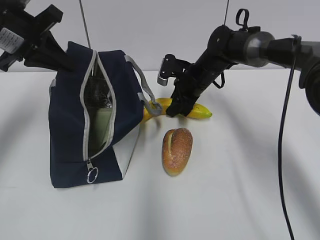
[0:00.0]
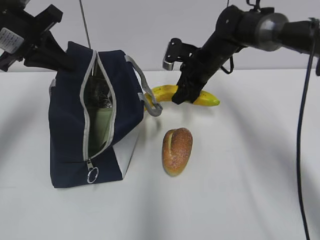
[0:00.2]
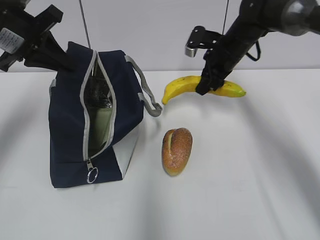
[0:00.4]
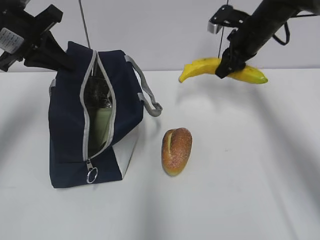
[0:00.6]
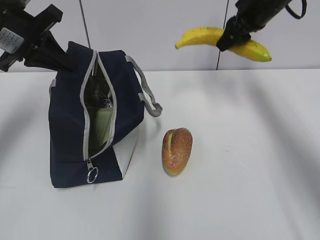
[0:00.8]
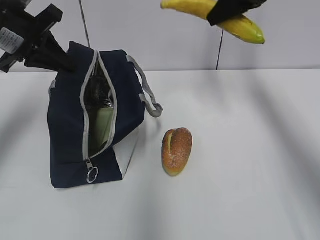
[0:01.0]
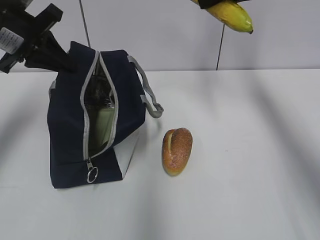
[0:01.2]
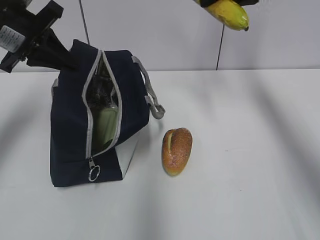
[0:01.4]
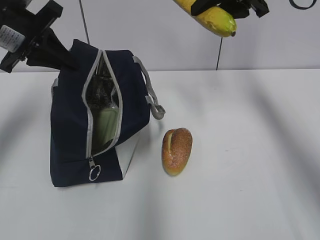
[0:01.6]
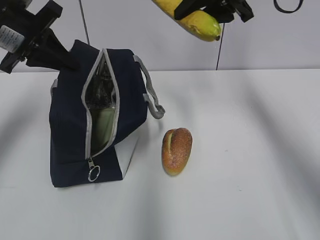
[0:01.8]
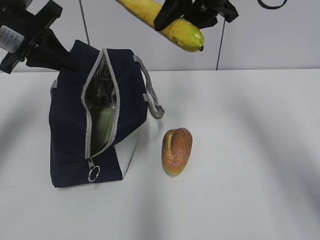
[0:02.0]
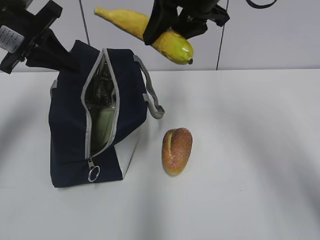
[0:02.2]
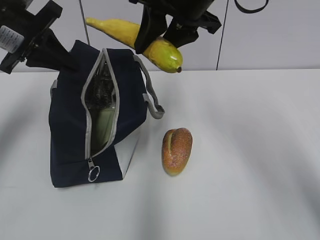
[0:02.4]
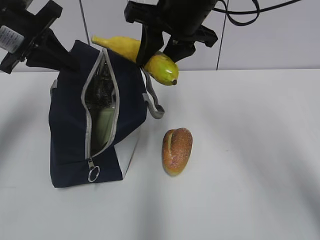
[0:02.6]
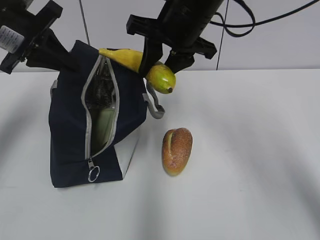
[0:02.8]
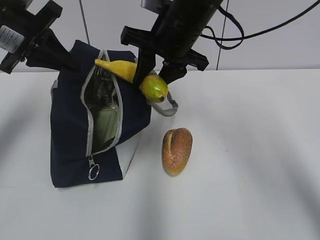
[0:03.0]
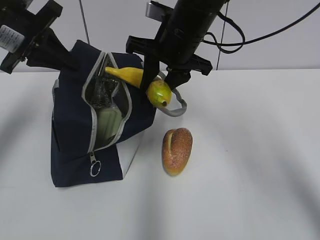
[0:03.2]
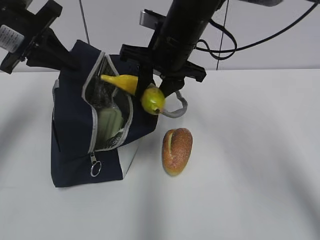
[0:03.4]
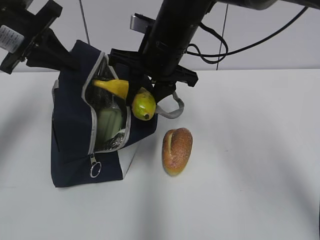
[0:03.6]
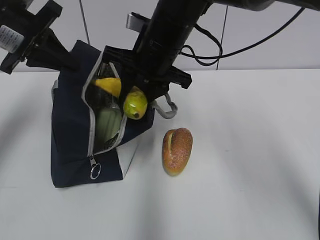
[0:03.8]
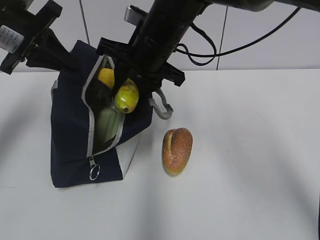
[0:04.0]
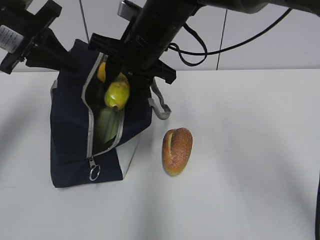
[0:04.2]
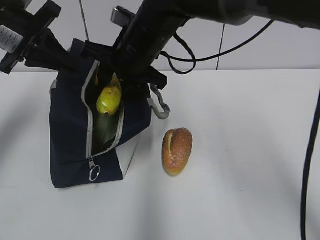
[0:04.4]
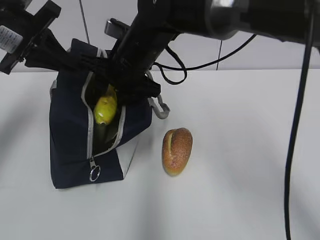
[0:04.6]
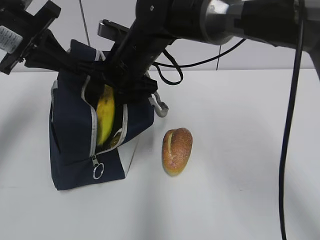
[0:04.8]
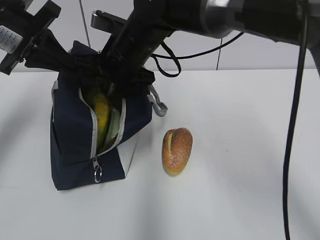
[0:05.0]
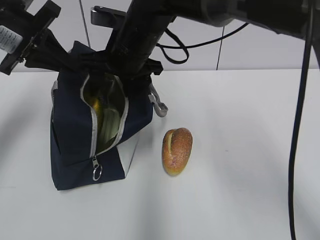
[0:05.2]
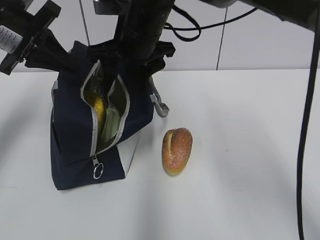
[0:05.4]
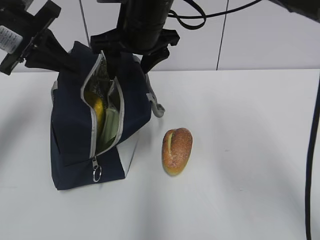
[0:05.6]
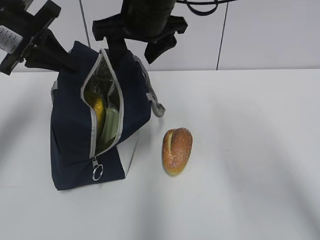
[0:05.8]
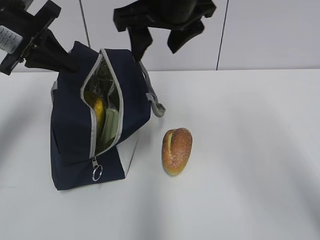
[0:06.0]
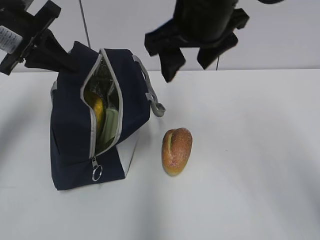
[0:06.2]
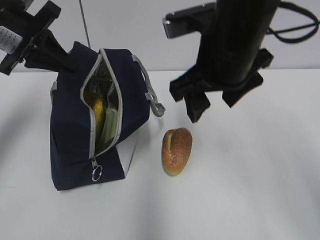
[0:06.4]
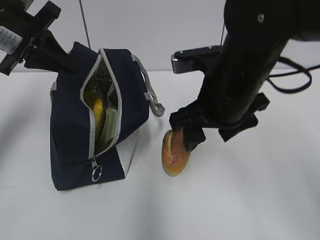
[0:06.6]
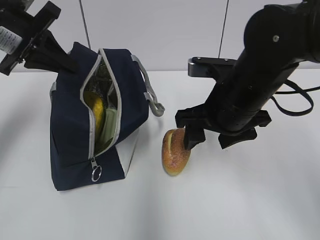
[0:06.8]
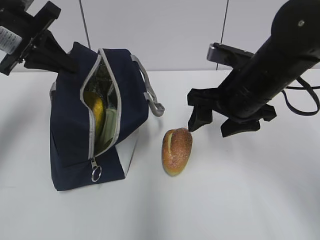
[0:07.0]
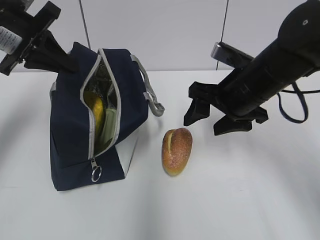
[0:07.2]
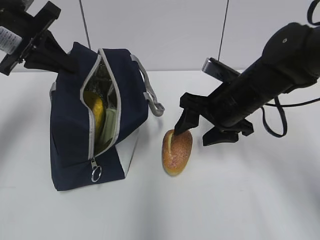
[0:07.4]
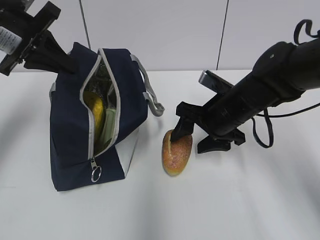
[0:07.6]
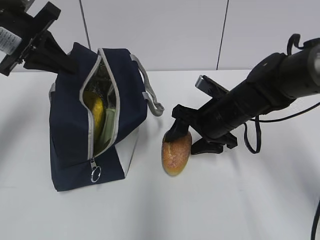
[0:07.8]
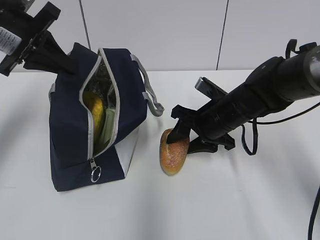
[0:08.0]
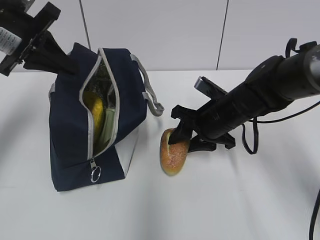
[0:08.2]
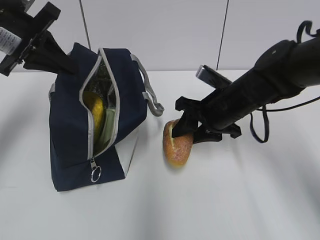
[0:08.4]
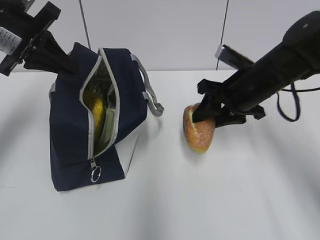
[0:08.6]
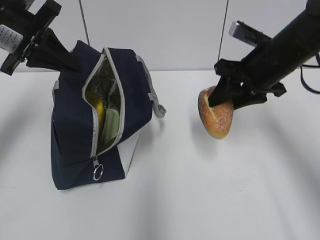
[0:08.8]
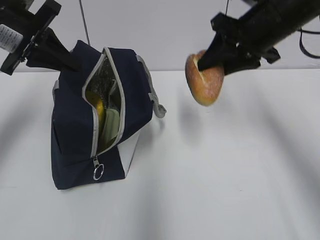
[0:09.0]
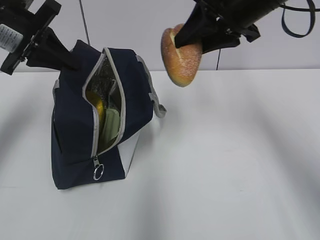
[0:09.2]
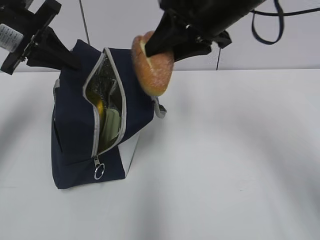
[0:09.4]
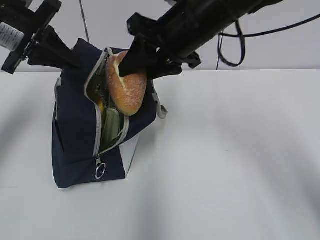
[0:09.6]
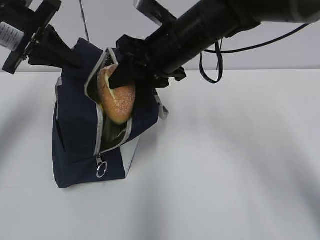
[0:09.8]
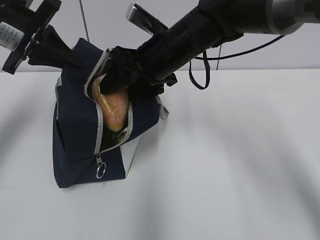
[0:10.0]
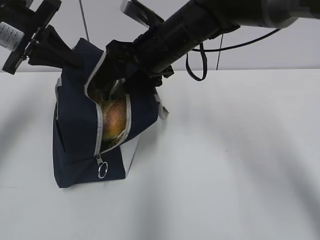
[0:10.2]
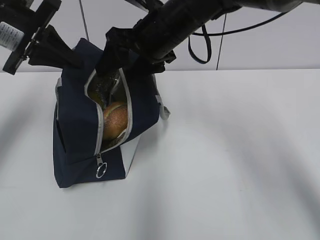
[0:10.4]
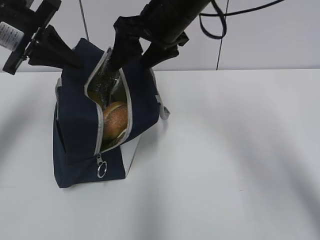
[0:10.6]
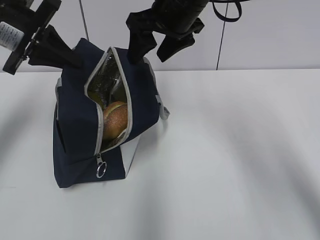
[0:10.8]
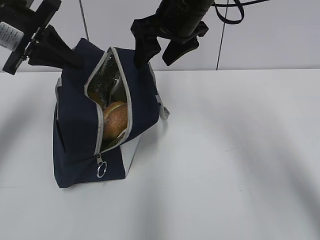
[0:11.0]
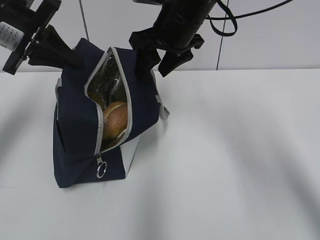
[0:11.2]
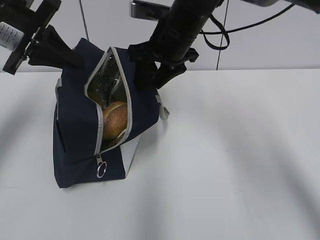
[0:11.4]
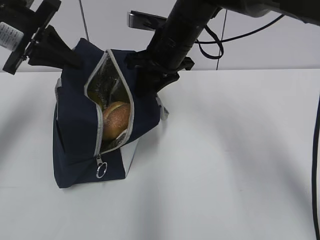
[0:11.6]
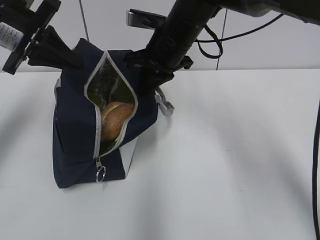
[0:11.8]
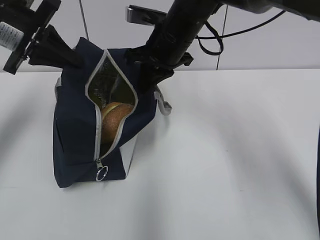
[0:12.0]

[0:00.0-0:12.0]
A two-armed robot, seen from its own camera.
0:00.0 to 0:01.6: The right gripper shifts roughly 20 cm upward.
0:01.6 to 0:03.0: The right gripper heads to the left and downward, covering some 15 cm.
0:03.0 to 0:04.4: The right gripper shifts some 5 cm to the left.
0:04.4 to 0:06.0: The right gripper travels upward and to the right by approximately 10 cm, and opens up.
0:06.0 to 0:07.6: The right gripper moves downward, some 20 cm.
0:07.6 to 0:09.0: The right gripper goes roughly 15 cm upward, and closes its fingers.
0:09.0 to 0:10.4: The right gripper heads to the left, covering some 15 cm, and opens.
0:10.4 to 0:12.0: The right gripper closes.

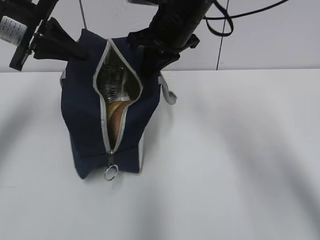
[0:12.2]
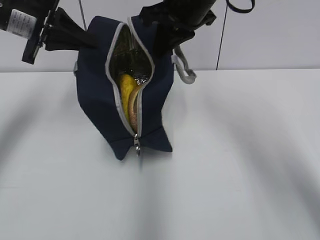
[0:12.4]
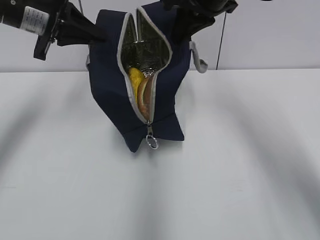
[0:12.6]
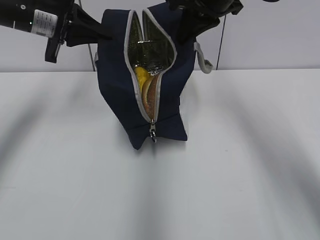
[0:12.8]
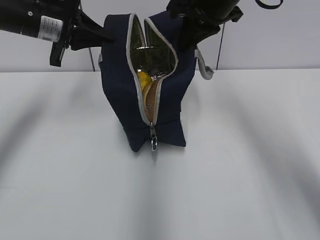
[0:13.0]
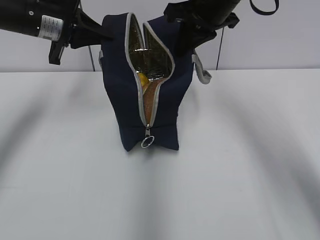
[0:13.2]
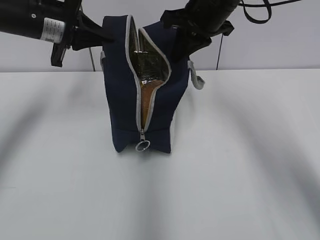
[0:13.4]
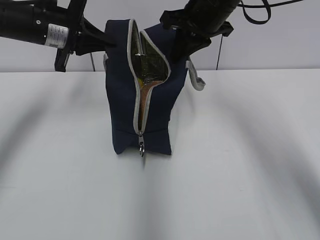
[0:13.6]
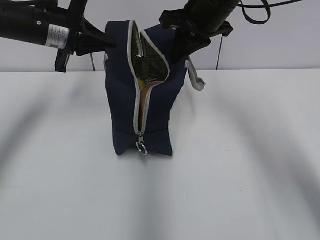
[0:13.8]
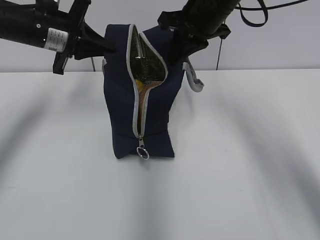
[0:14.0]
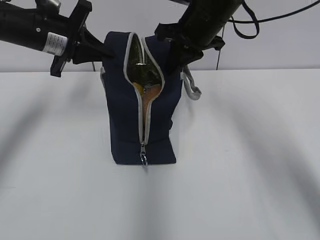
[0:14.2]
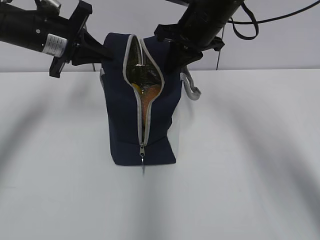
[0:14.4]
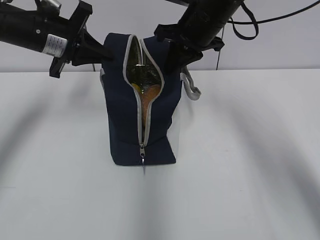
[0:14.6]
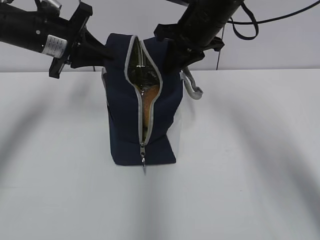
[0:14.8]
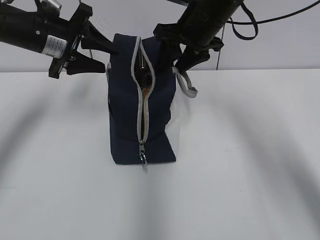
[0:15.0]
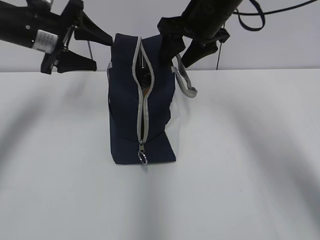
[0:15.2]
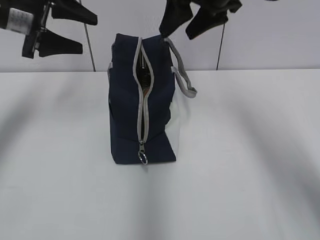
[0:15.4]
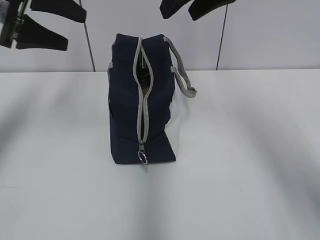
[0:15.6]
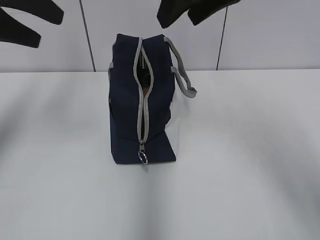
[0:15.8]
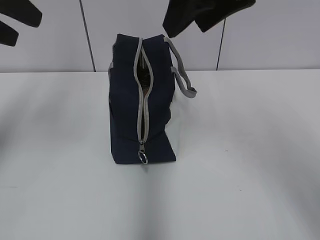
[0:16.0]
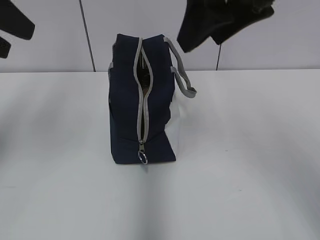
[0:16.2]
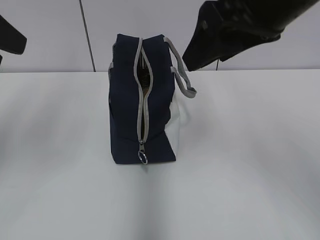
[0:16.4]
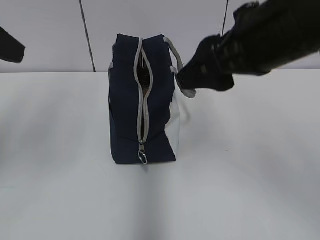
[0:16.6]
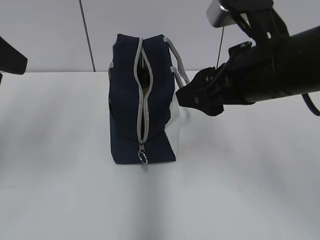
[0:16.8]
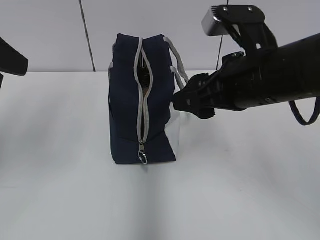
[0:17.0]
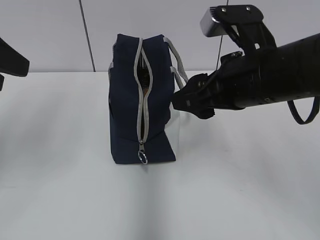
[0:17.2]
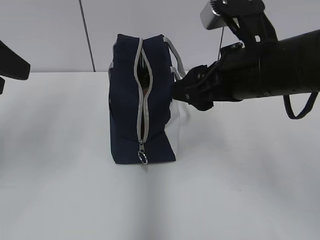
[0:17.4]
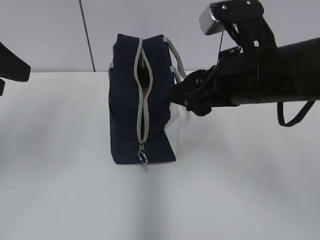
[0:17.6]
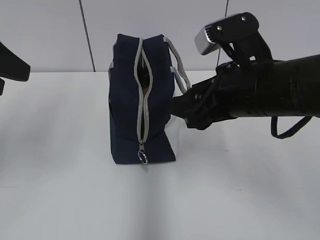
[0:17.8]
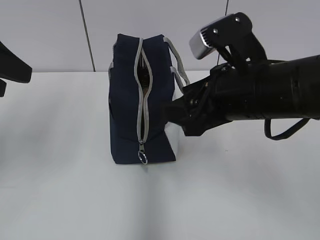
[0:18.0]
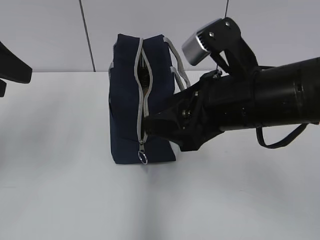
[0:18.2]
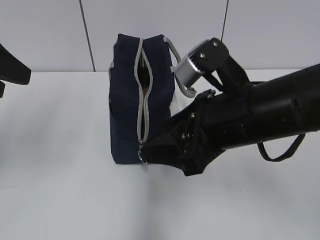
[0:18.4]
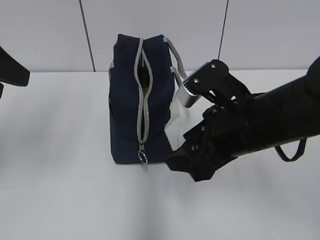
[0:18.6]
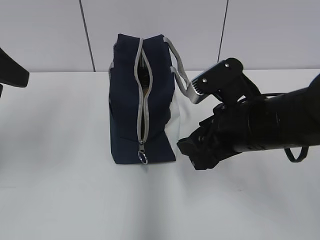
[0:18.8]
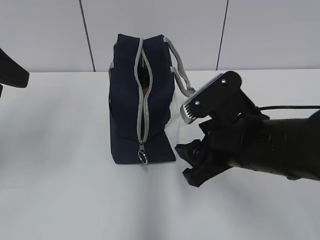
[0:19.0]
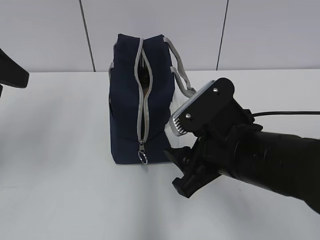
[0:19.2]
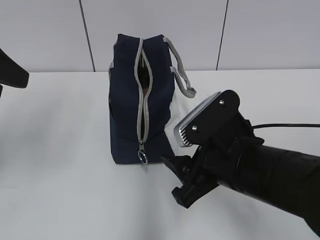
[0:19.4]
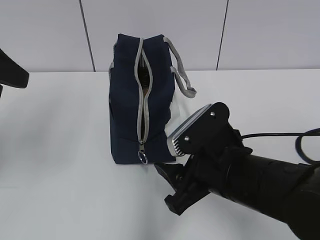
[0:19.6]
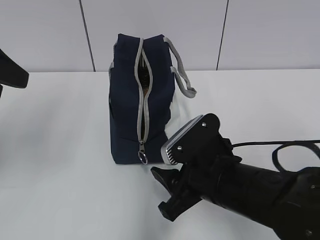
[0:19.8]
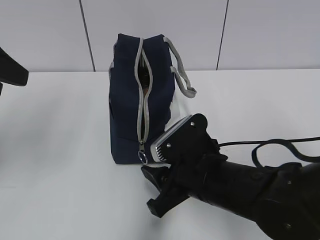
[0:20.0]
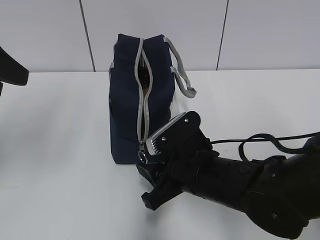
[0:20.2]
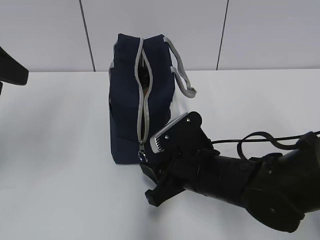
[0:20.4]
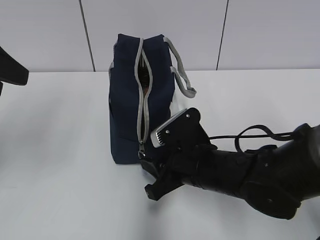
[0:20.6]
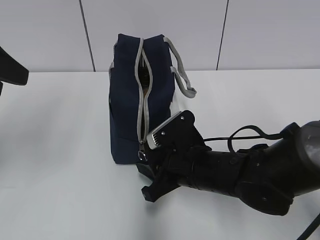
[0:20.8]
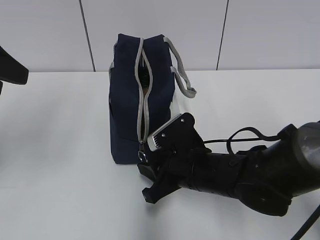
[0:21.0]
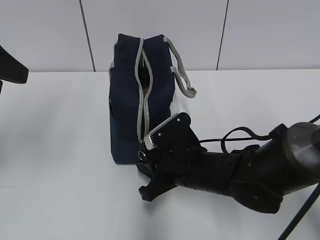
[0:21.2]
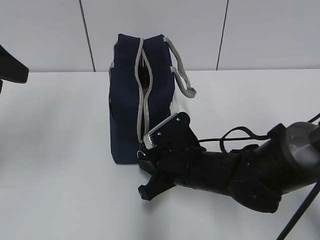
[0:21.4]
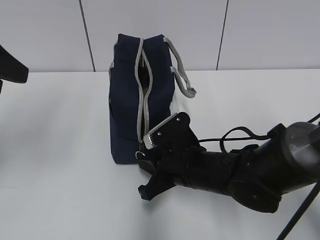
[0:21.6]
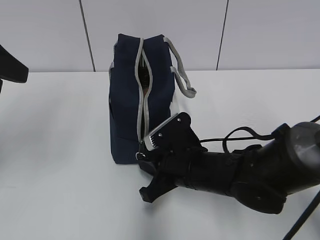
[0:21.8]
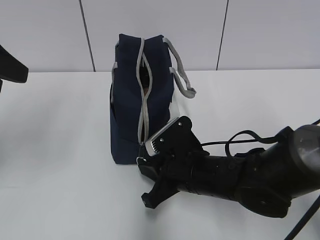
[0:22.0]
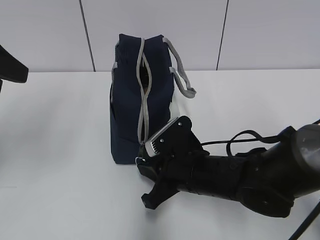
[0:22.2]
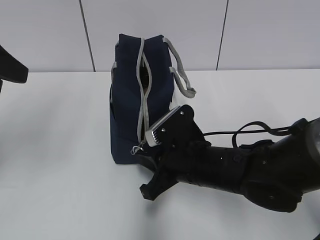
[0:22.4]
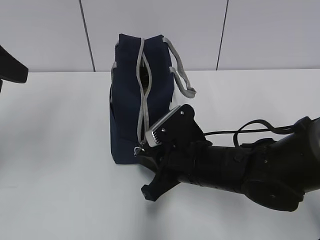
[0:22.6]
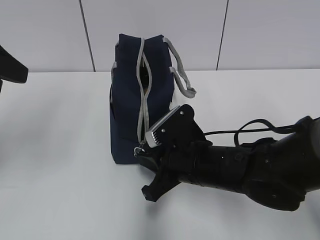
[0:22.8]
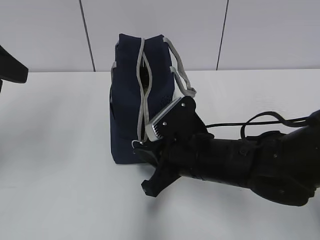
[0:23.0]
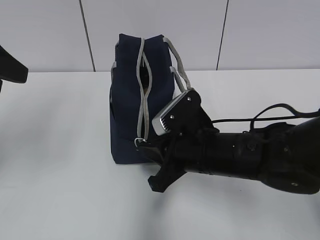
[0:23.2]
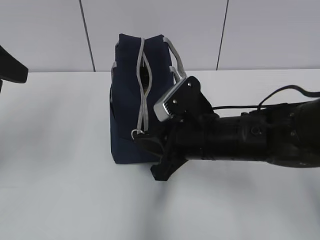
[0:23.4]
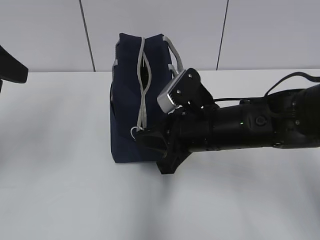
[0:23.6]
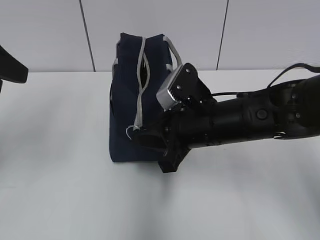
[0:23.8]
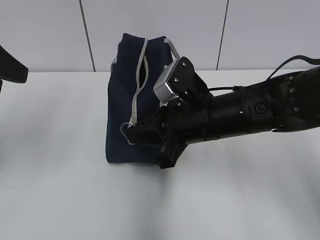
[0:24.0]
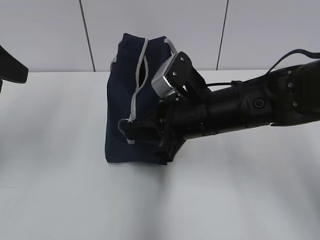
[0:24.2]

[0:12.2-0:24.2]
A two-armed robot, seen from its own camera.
0:12.2 to 0:13.8: The right gripper shifts about 5 cm to the right, while the left gripper changes place by roughly 5 cm.
0:13.8 to 0:15.2: The right gripper opens up. The left gripper opens its fingers.
0:15.2 to 0:16.6: The right gripper goes approximately 20 cm backward; the left gripper moves backward and upward, some 20 cm.
0:16.6 to 0:18.2: The right gripper goes approximately 5 cm downward.
0:18.2 to 0:19.8: The right gripper moves downward, about 10 cm.
0:19.8 to 0:21.2: The right gripper shifts about 5 cm forward, and closes its fingers.
0:21.2 to 0:22.6: The grippers move only a little.
0:22.6 to 0:24.2: The right gripper goes about 10 cm upward.
